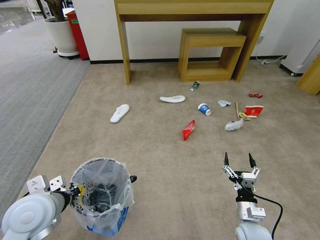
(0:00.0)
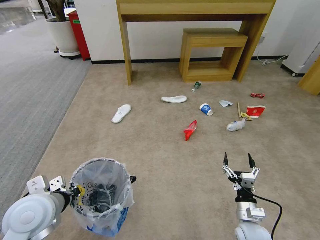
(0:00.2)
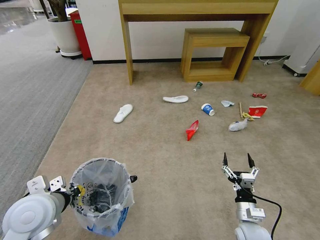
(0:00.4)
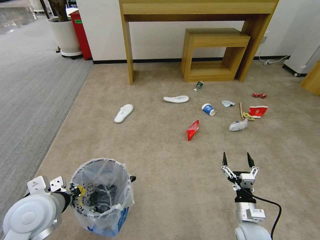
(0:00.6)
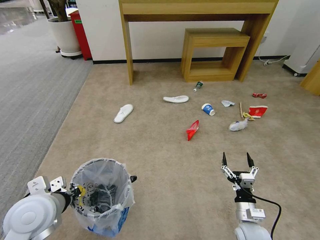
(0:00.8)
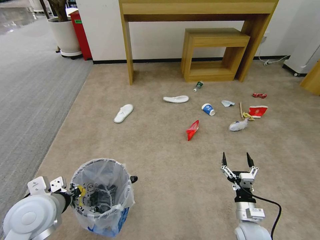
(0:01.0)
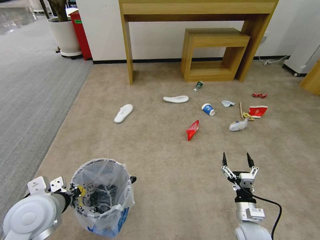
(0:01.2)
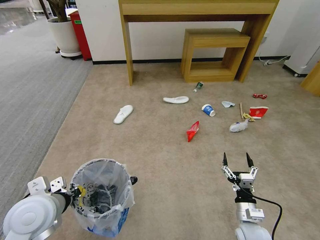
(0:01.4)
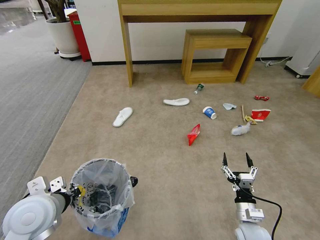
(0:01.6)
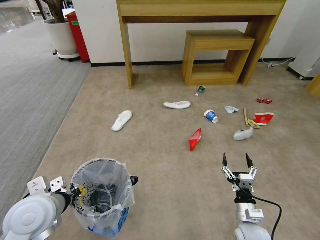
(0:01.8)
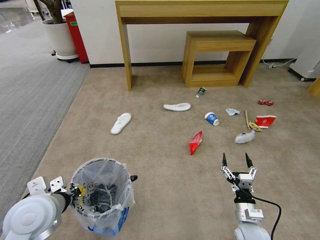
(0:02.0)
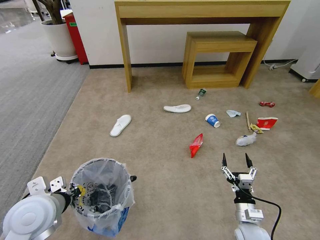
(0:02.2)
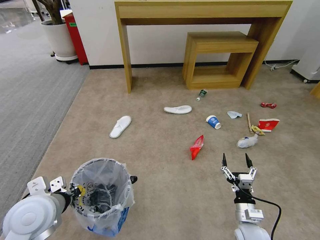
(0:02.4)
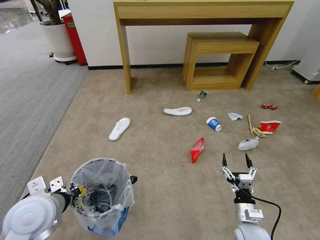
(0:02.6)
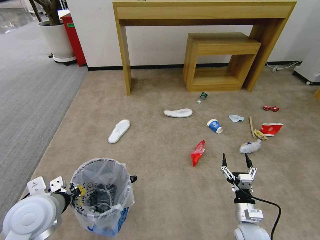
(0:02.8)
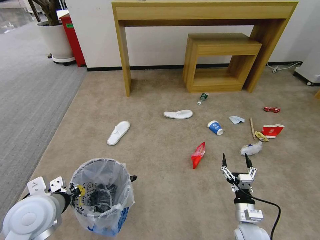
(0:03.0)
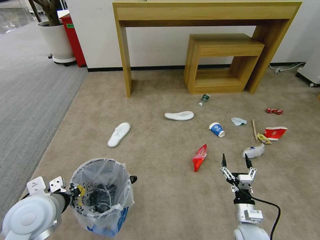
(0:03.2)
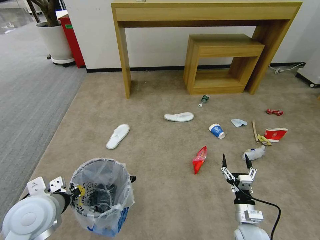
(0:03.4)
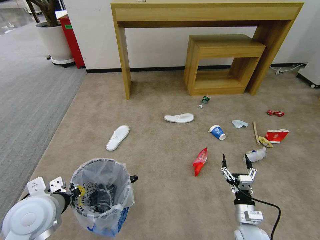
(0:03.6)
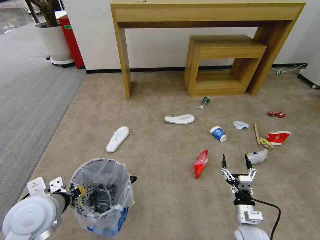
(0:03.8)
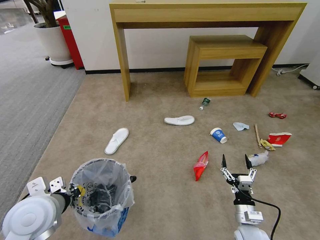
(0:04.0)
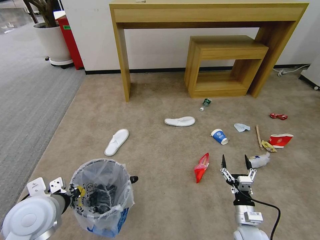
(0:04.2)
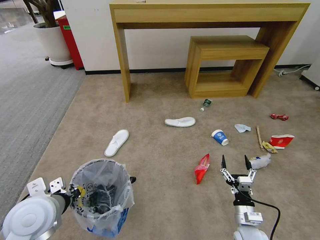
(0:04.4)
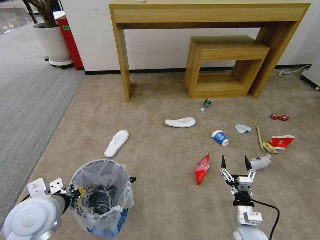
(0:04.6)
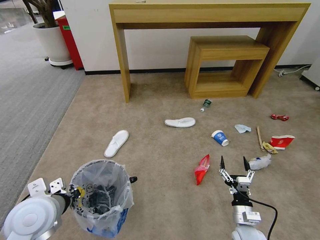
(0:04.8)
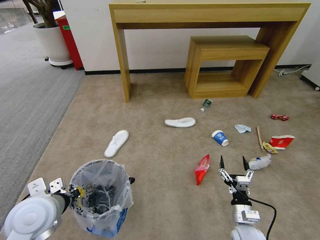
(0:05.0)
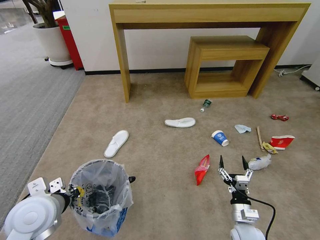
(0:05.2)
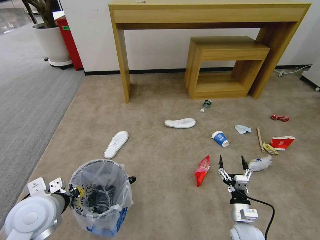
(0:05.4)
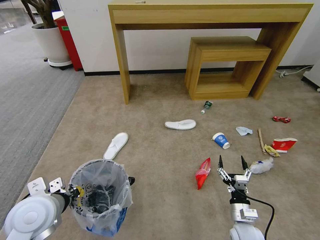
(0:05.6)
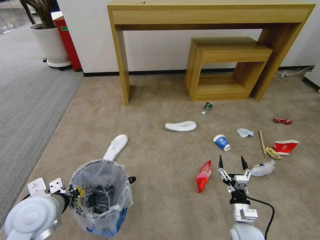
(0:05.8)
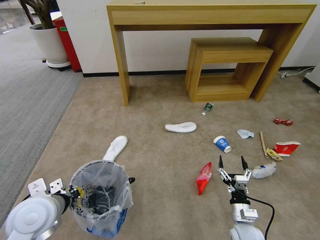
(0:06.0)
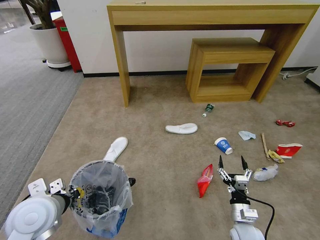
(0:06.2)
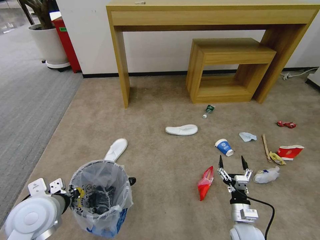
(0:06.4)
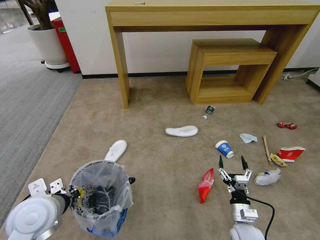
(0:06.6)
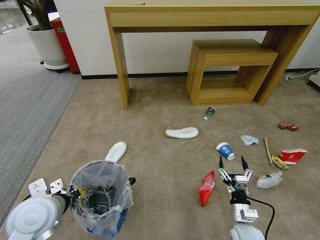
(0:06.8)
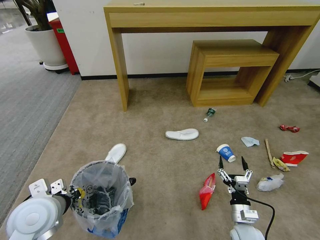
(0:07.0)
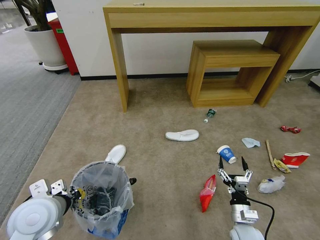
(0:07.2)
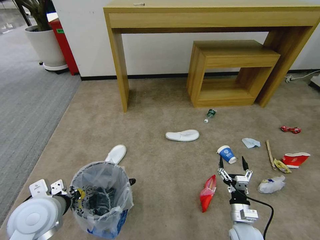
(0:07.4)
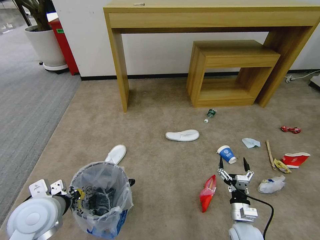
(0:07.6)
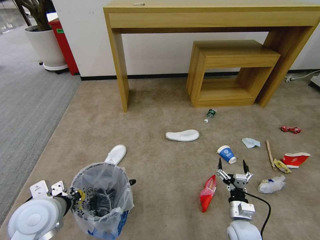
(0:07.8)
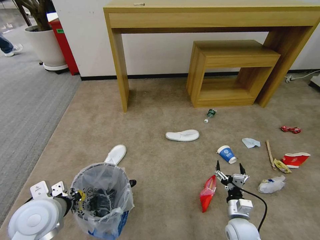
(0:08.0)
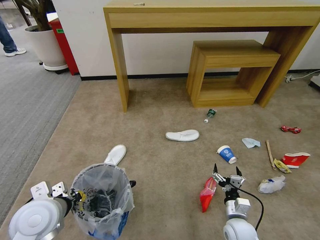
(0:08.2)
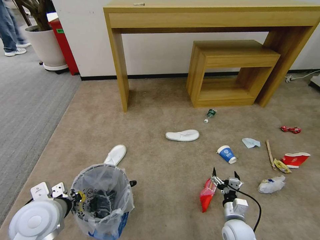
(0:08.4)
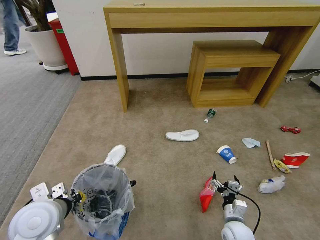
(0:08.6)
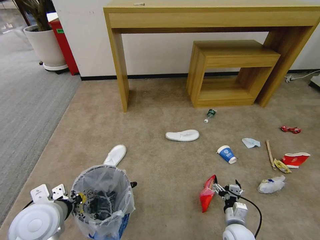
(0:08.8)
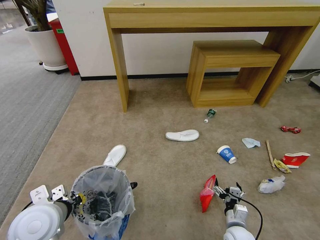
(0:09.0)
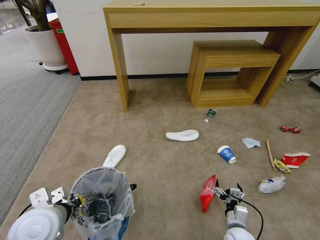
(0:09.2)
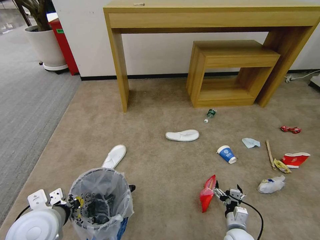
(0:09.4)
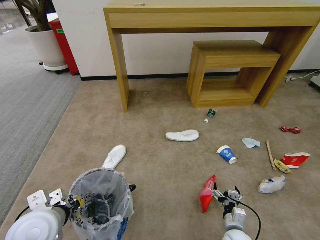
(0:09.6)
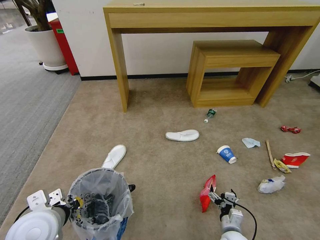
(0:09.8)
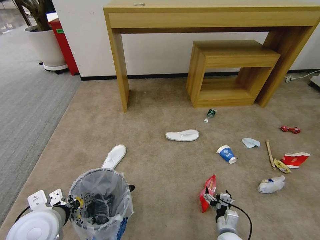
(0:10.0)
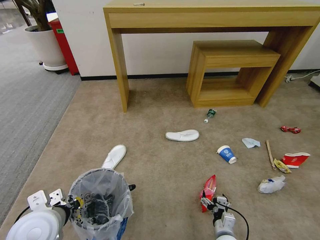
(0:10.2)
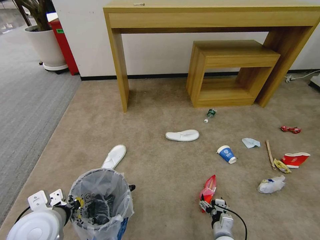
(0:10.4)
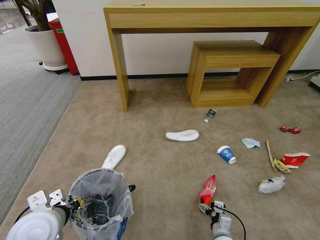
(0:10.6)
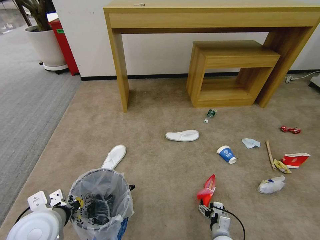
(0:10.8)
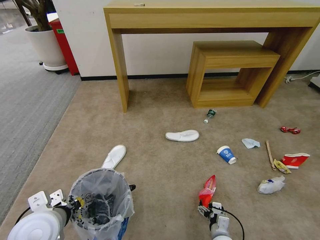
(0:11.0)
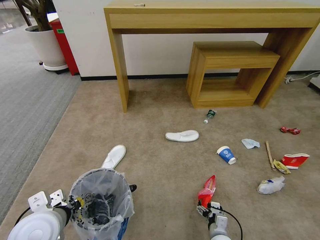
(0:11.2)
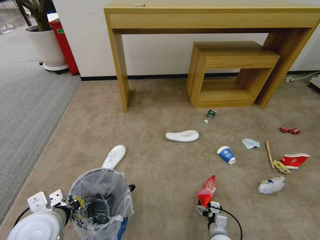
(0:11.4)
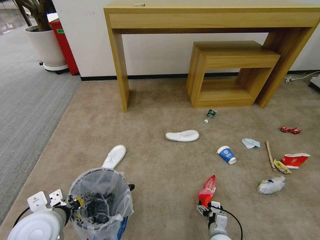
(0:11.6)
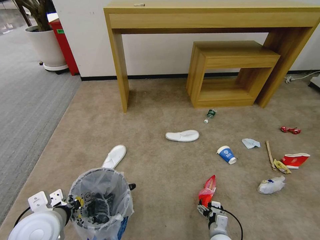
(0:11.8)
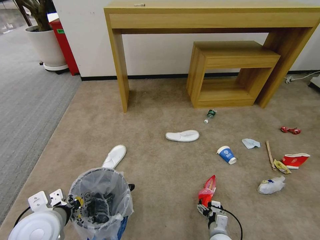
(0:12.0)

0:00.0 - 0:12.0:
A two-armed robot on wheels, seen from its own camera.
Task of the whole recording: Pick up the trash bin and place the garbage on the floor into it.
0:00.0 - 0:01.6: Both grippers stay put.
0:03.0 - 0:04.4: Both grippers stay put.
0:04.4 - 0:06.0: The grippers stay close to where they were, moving slightly.
0:09.0 - 0:10.4: The right gripper changes place by about 5 cm.
0:10.4 - 0:12.0: The grippers stay close to where they were, moving slightly.

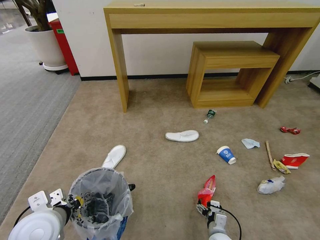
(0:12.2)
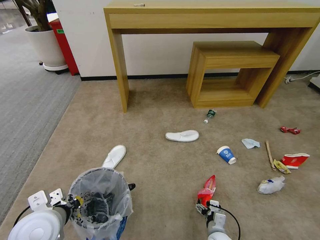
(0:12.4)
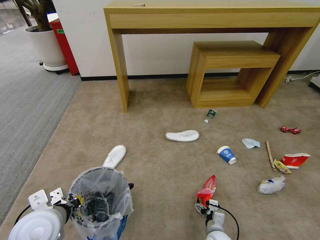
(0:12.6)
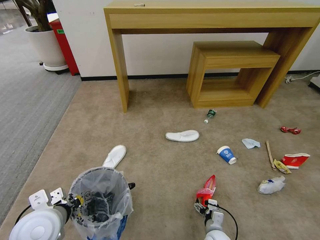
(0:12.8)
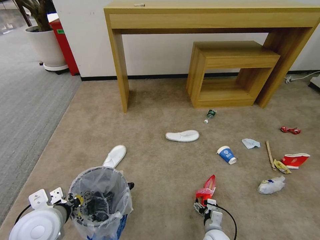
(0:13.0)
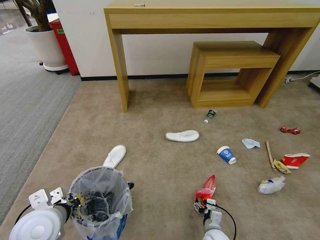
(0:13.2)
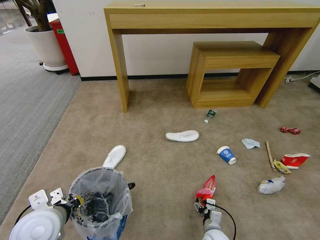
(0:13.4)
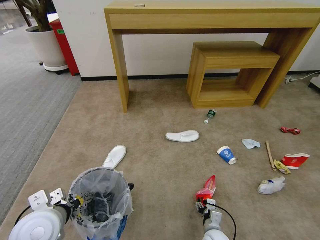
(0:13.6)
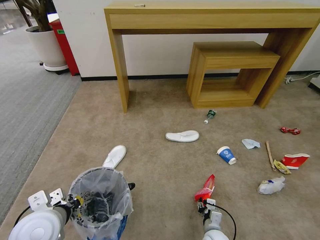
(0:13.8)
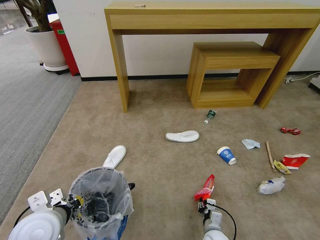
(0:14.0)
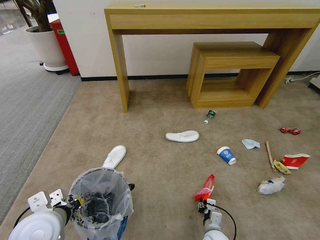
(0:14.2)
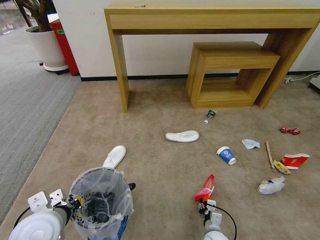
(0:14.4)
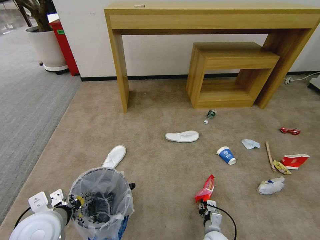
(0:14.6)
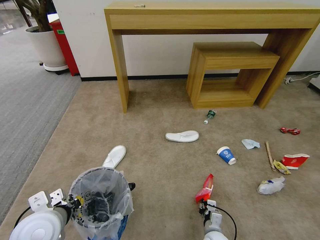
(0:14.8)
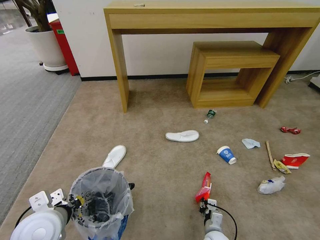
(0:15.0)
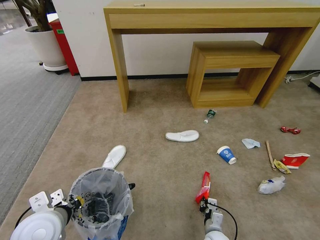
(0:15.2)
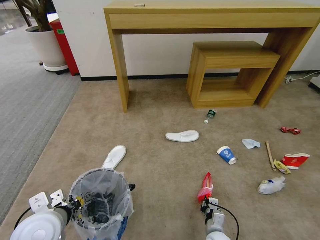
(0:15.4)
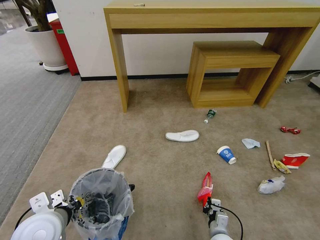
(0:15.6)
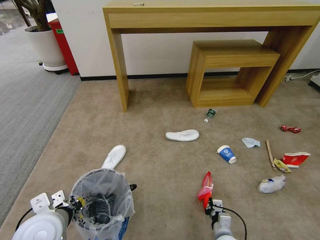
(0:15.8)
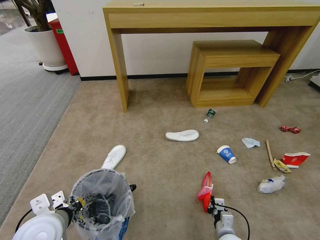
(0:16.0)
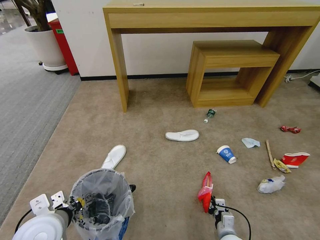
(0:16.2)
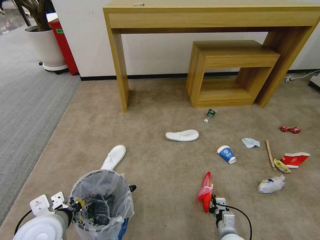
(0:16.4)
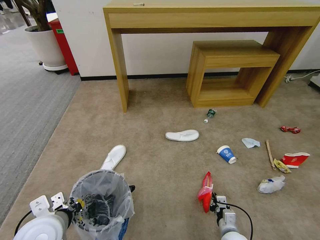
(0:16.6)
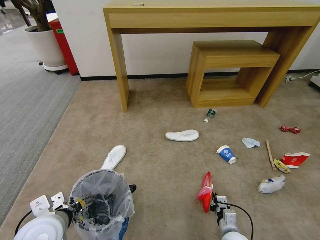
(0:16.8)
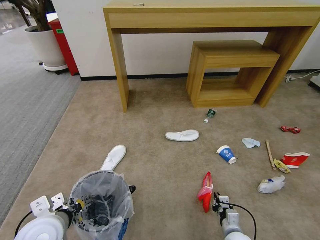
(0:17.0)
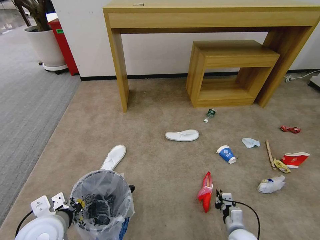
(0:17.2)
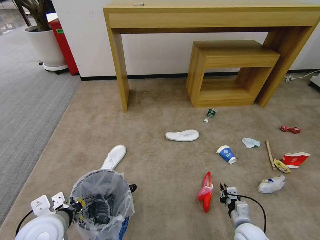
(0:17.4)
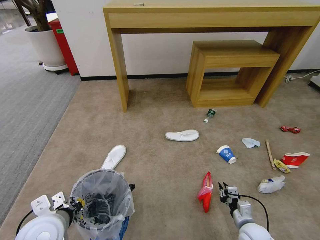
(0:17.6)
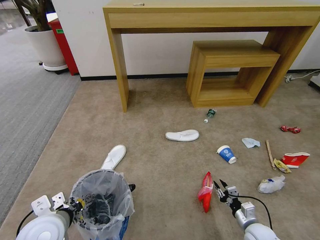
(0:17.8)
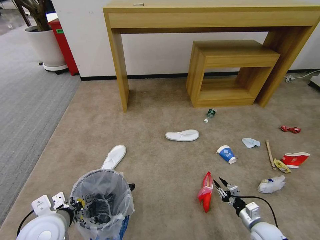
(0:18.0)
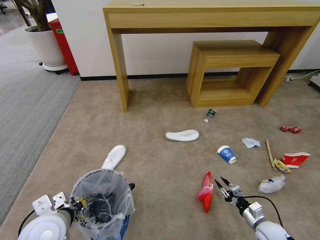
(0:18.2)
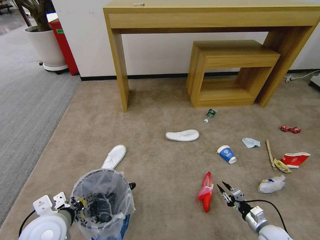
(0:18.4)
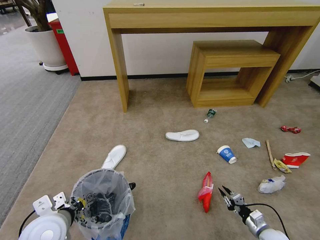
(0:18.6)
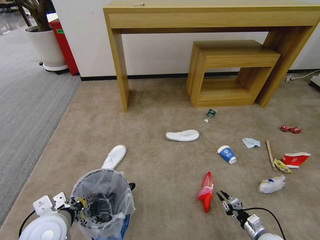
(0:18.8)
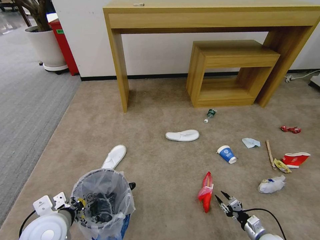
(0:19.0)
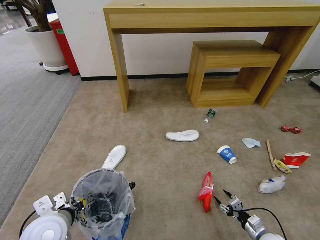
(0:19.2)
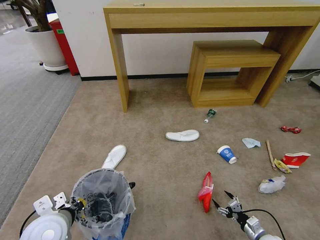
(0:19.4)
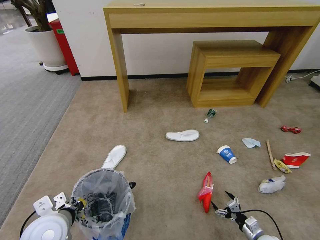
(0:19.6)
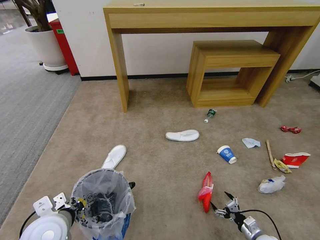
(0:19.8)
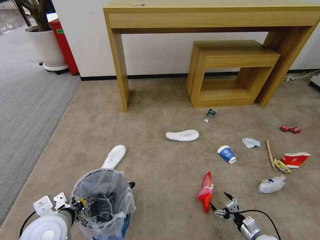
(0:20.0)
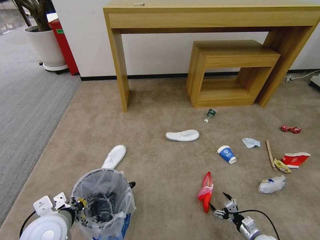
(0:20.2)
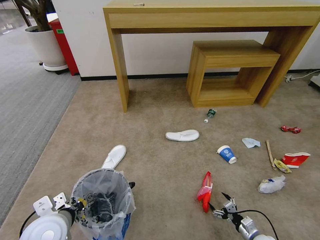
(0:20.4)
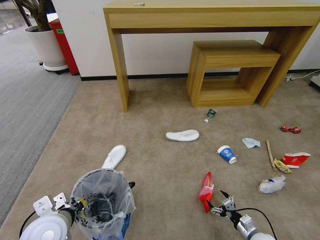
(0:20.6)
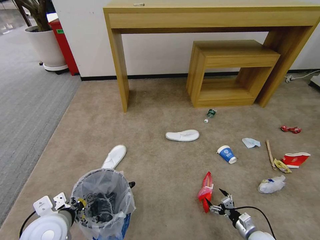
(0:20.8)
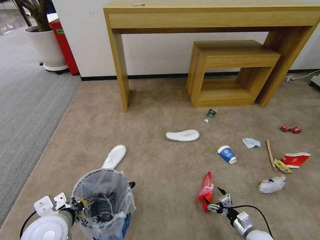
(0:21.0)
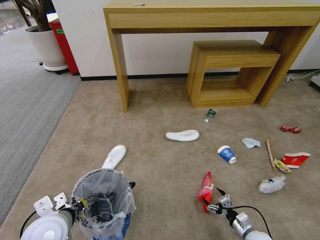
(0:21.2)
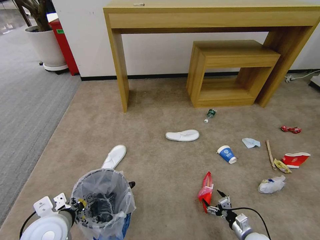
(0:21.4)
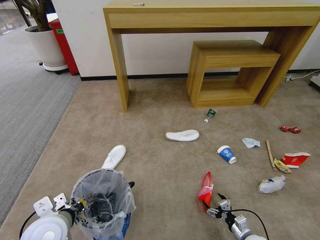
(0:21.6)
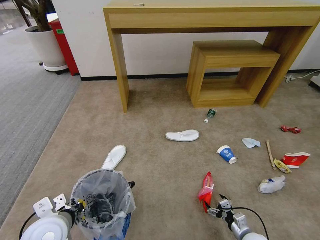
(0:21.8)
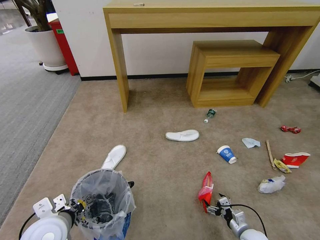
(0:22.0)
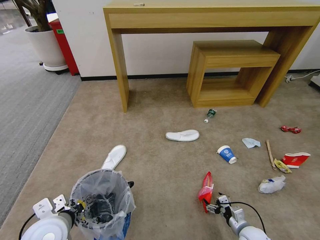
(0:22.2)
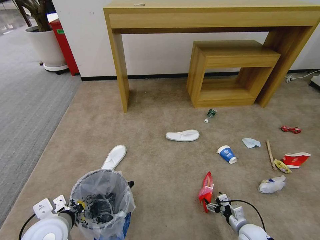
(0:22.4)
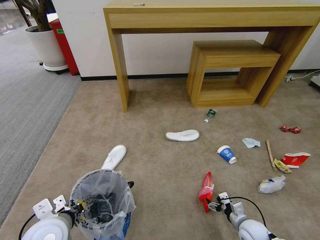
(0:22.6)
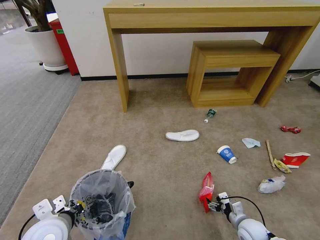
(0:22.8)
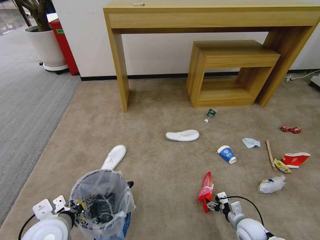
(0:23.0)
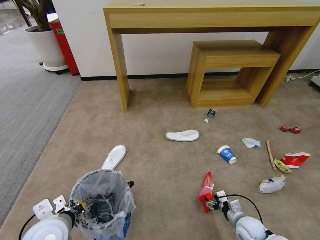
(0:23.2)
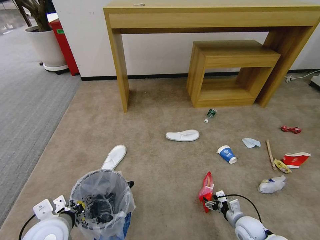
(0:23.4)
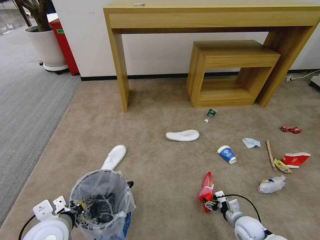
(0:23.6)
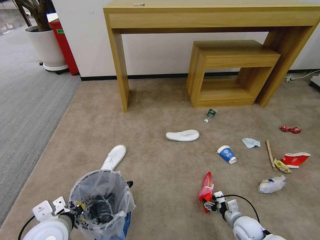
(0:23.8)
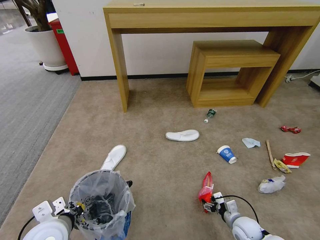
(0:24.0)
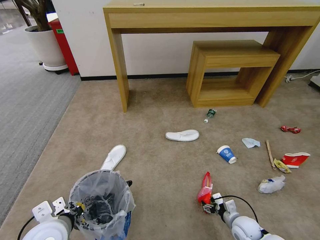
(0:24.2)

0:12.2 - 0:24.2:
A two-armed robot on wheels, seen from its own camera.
Task of the whole recording: Pick up the trash bin and place the garbage on the floor into it.
0:12.2 - 0:13.8: The right gripper closes.
0:13.8 - 0:15.2: The two grippers keep their place.
0:15.2 - 0:16.6: The right gripper moves to the right, approximately 5 cm.
0:16.6 - 0:18.2: The right gripper is displaced to the right by approximately 15 cm.
0:18.2 - 0:19.8: The right gripper travels downward by approximately 5 cm, and opens its fingers.
0:19.8 - 0:21.2: There are only small adjustments of the grippers.
0:21.2 - 0:22.6: The right gripper moves about 5 cm.
0:22.6 - 0:24.2: The grippers make only small movements.
